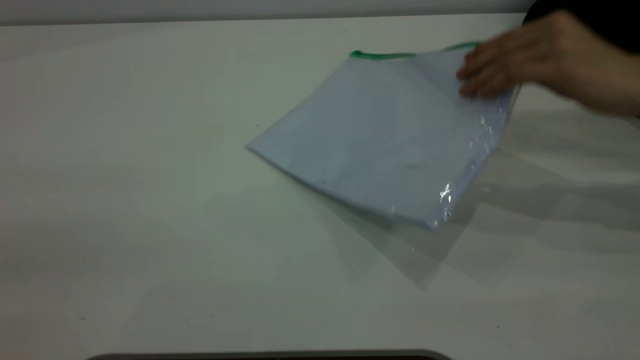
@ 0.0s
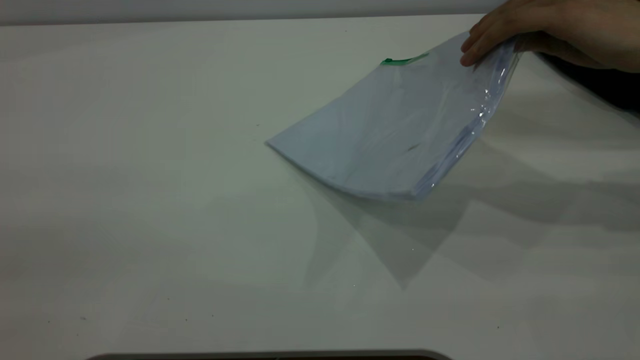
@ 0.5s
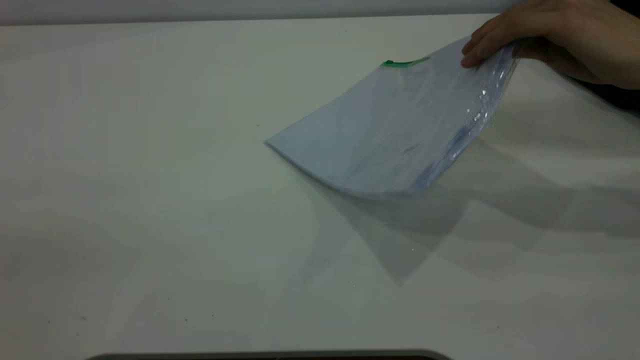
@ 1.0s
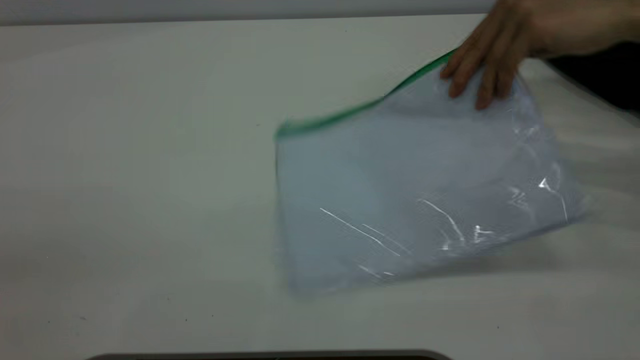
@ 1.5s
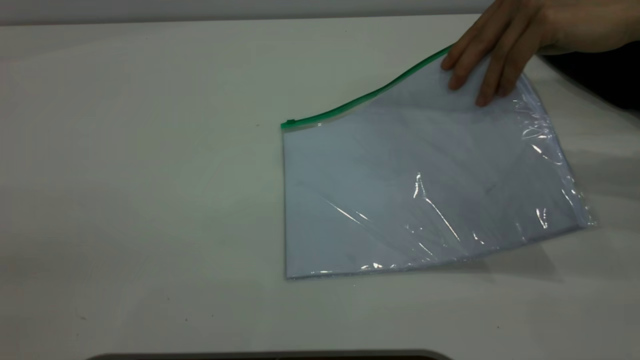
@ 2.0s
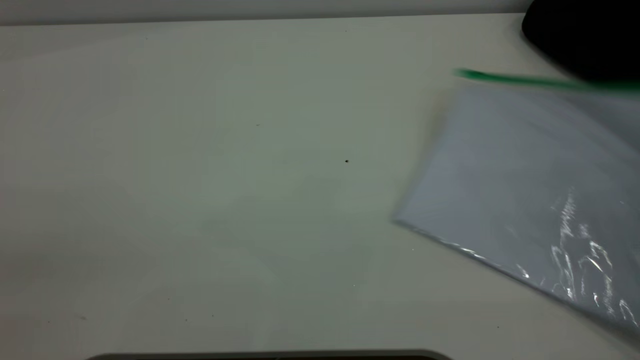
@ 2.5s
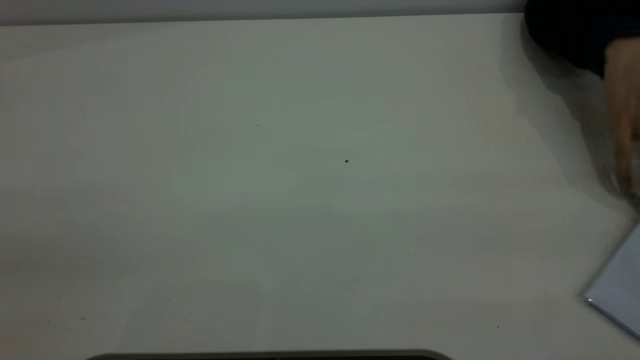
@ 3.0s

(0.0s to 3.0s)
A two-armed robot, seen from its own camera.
0.0s - 3.0s: There are only small adjustments of the grippers.

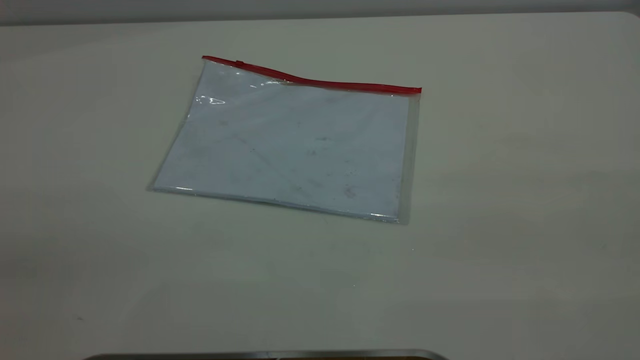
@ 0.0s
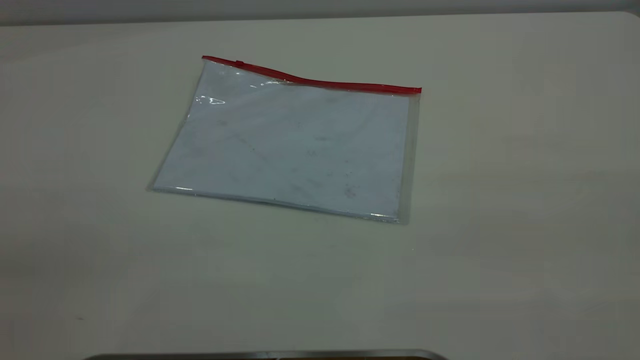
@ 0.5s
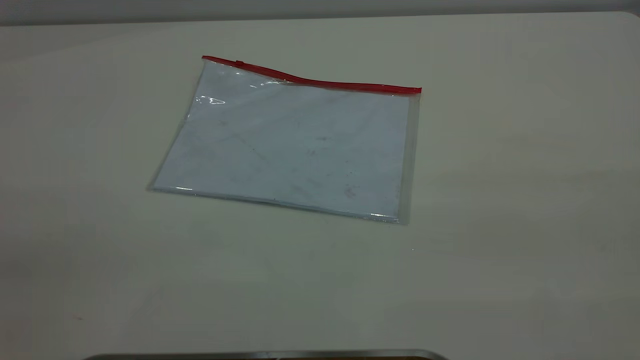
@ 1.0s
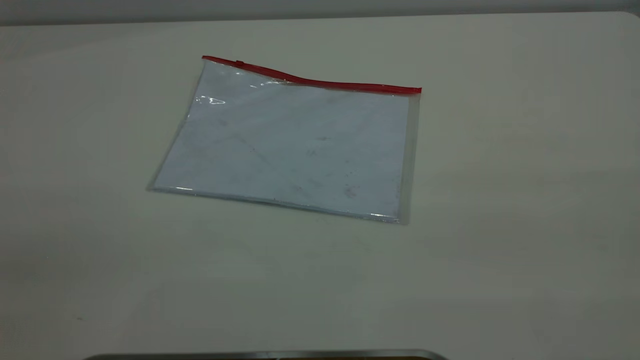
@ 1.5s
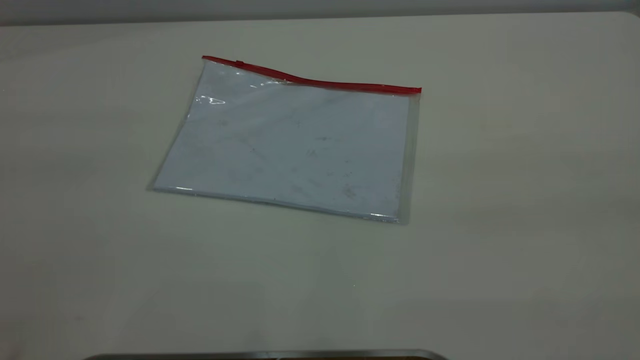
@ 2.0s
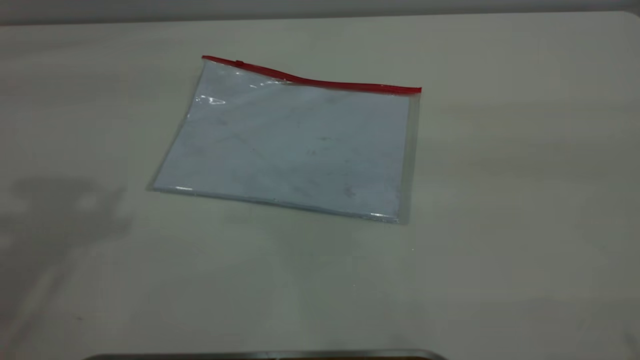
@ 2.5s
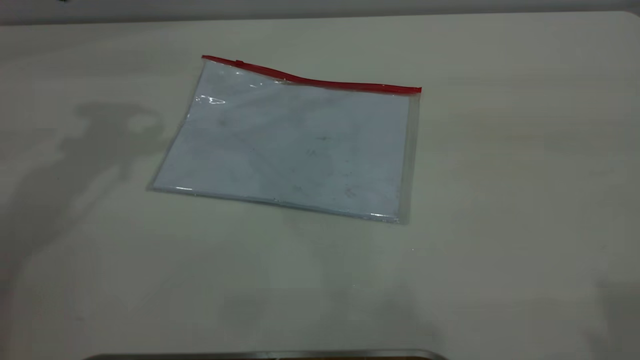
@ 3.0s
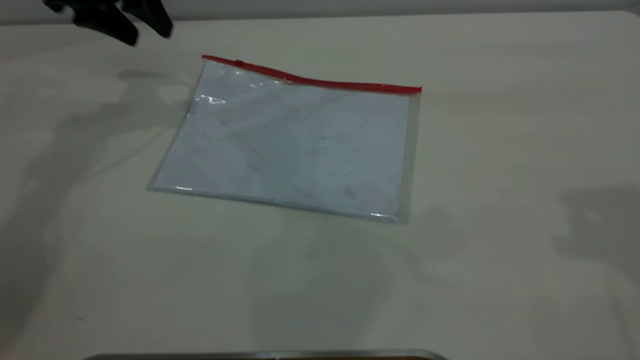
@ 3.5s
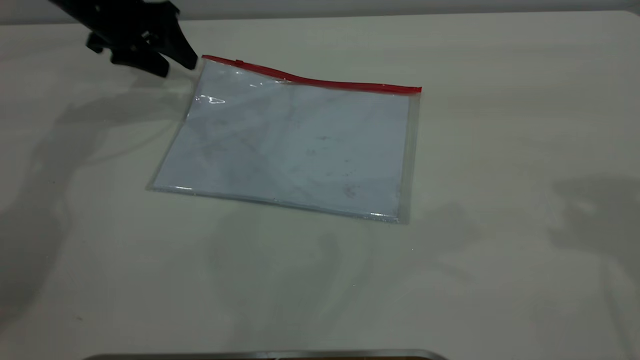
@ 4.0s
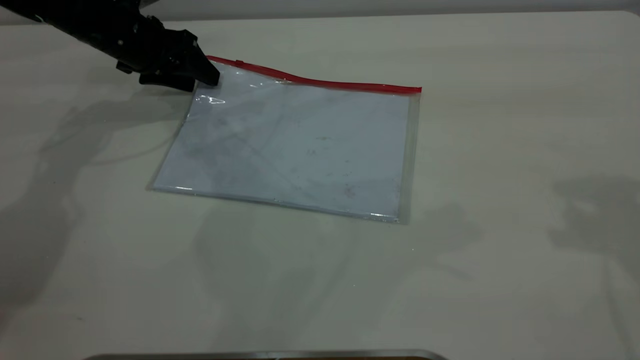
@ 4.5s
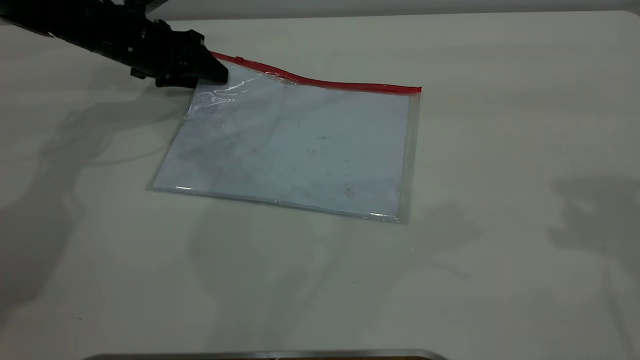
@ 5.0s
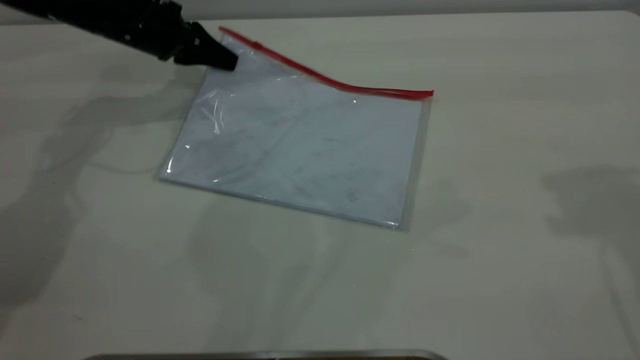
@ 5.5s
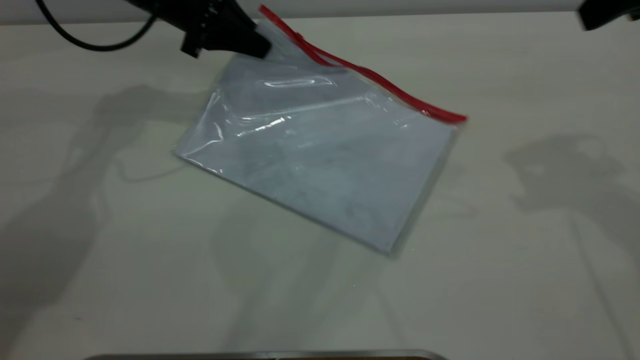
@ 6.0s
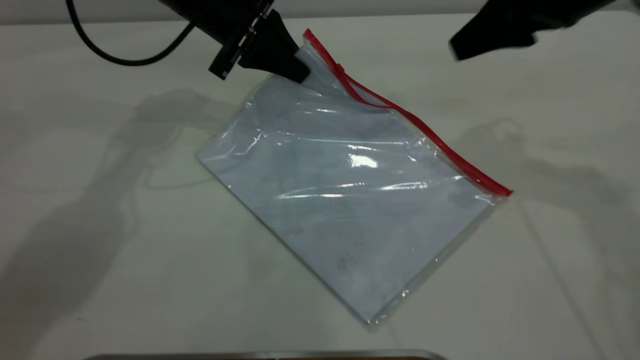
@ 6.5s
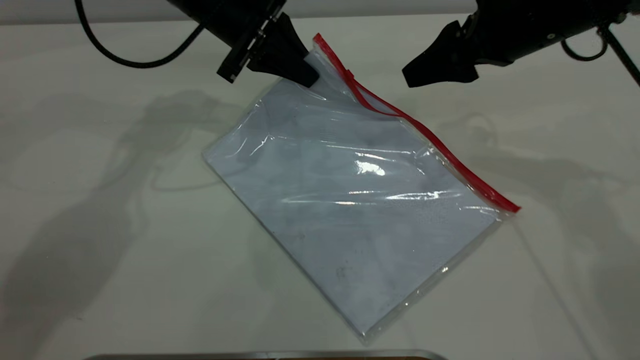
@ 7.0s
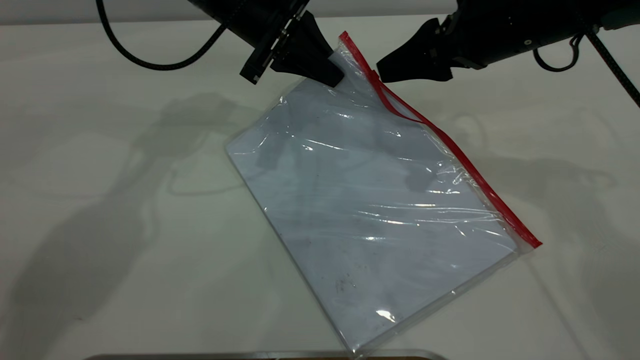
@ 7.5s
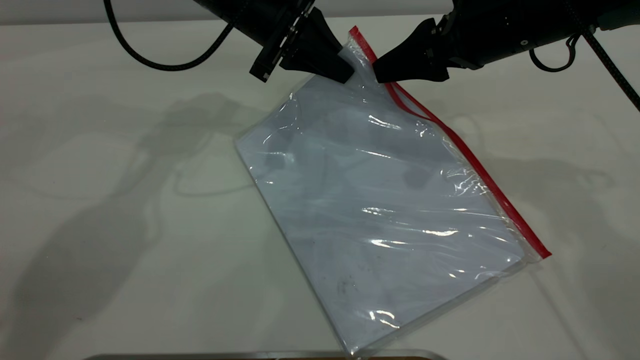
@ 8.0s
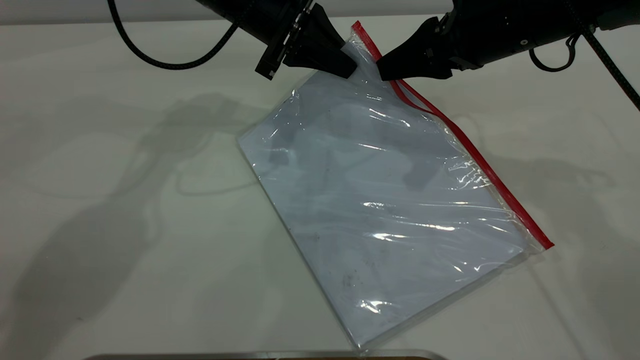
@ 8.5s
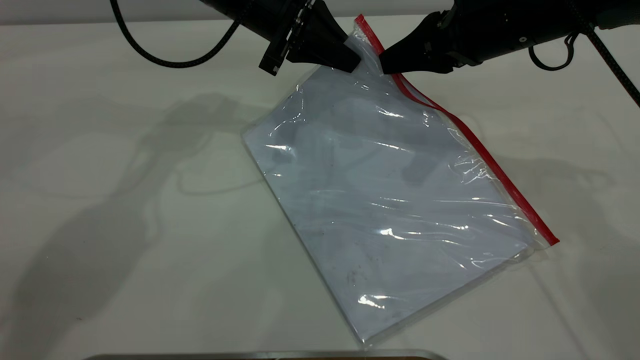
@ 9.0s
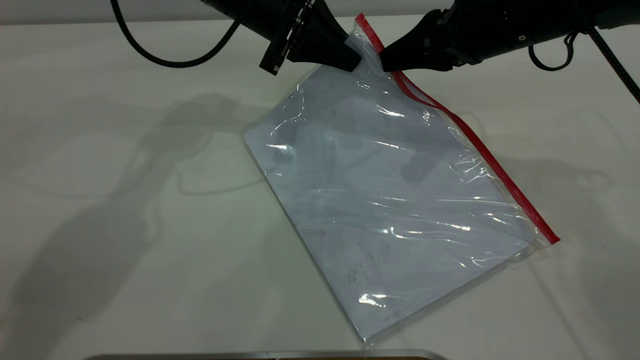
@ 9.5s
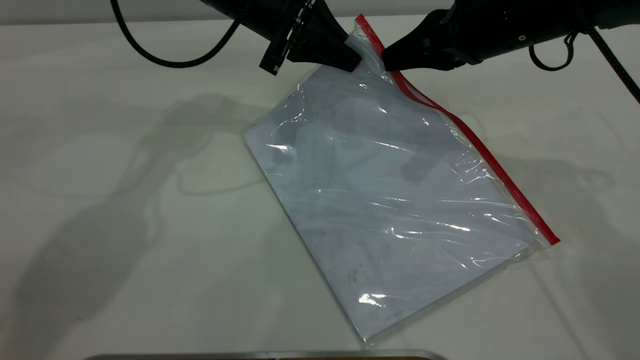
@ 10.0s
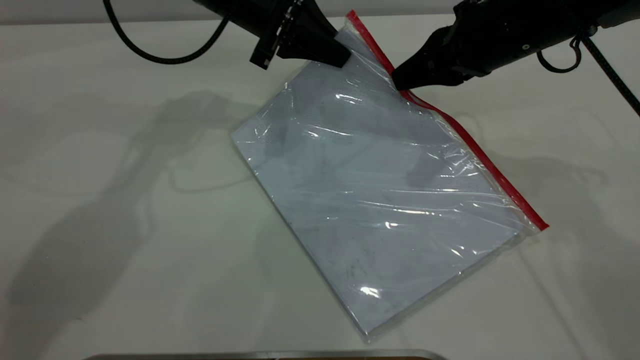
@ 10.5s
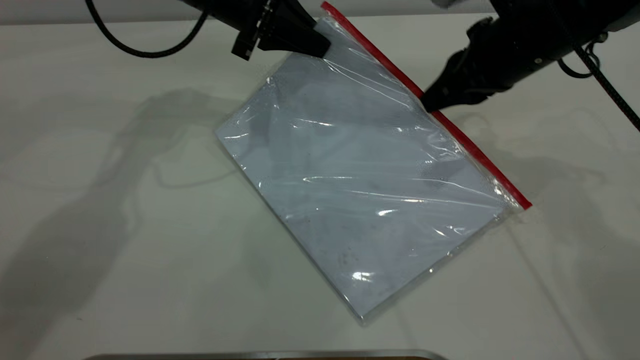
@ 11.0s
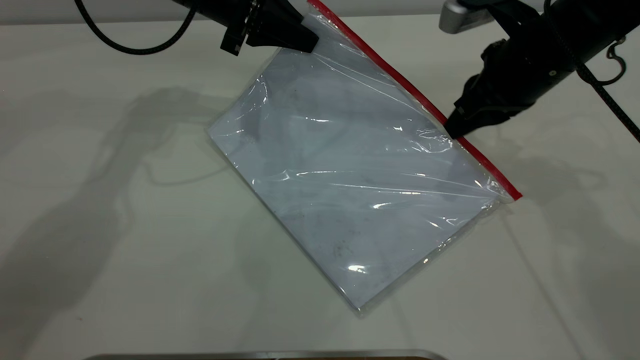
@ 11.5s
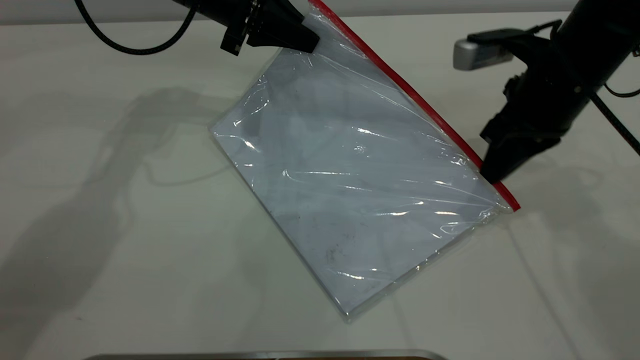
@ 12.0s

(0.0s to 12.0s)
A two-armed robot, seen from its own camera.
Step, 0.0s - 5.5s: Pick up the transparent plastic bag with the left gripper.
2.0s - 4.0s: The left gripper is displaced forward and downward by about 50 cm.
4.0s - 6.0s: The right gripper heads forward and downward, covering roughly 10 cm, while the left gripper moves to the right, about 10 cm, and closes up.
6.0s - 8.0s: The left gripper is displaced to the right by some 10 cm, while the right gripper moves downward and to the left, about 15 cm.
8.0s - 10.0s: The right gripper closes.
10.0s - 12.0s: The left gripper moves to the left, approximately 5 cm. Meanwhile the right gripper changes place by about 5 cm.

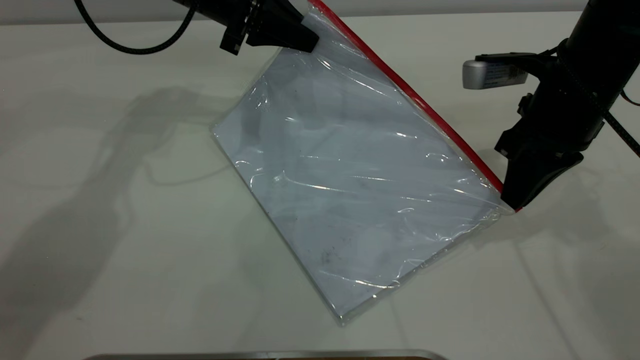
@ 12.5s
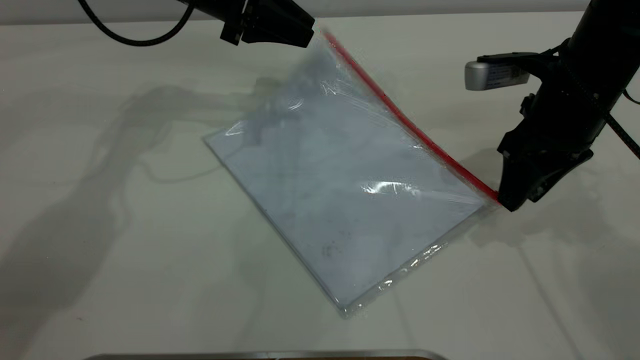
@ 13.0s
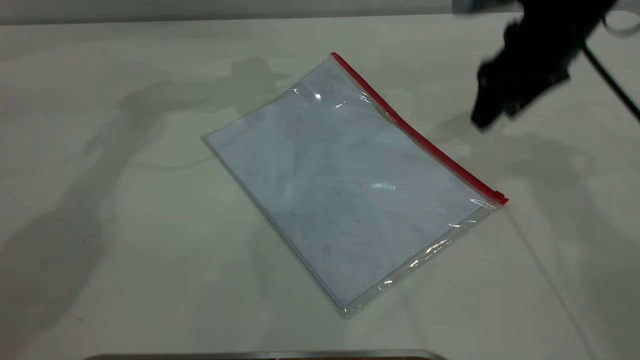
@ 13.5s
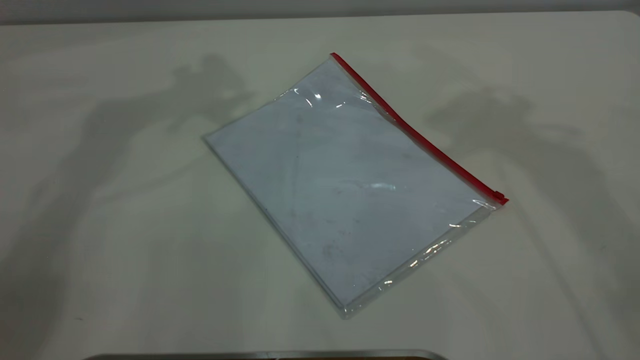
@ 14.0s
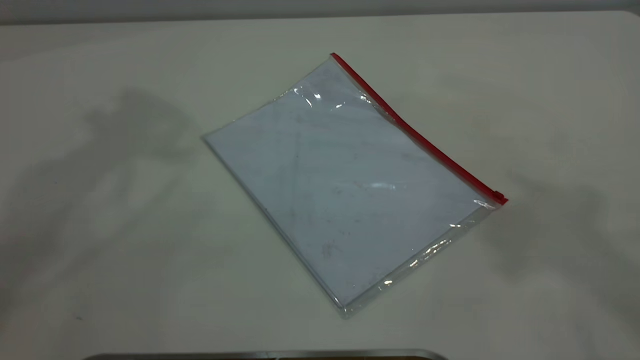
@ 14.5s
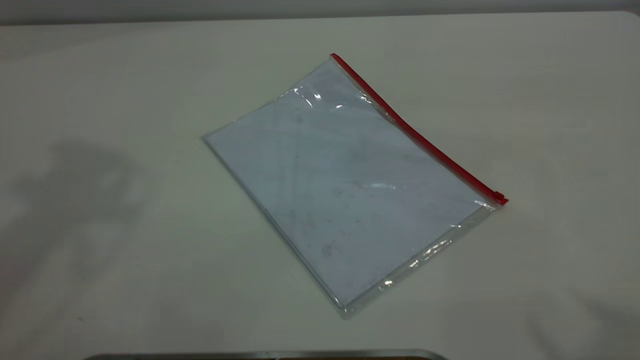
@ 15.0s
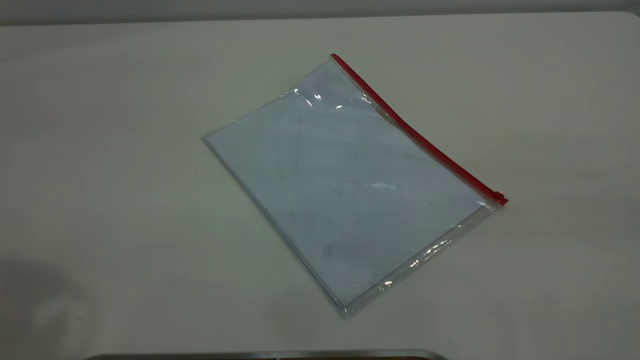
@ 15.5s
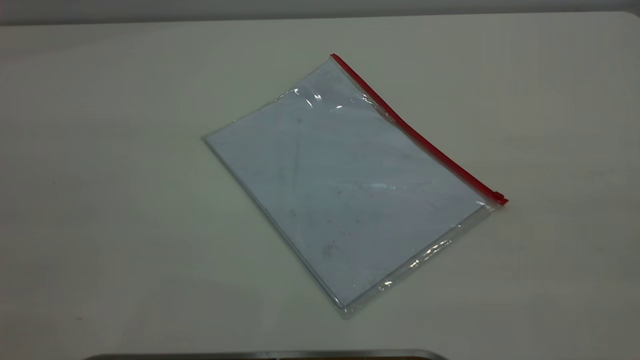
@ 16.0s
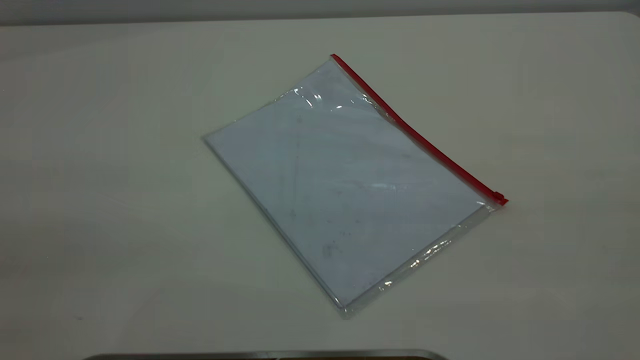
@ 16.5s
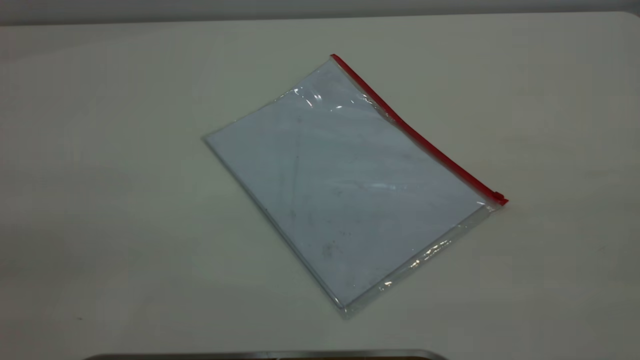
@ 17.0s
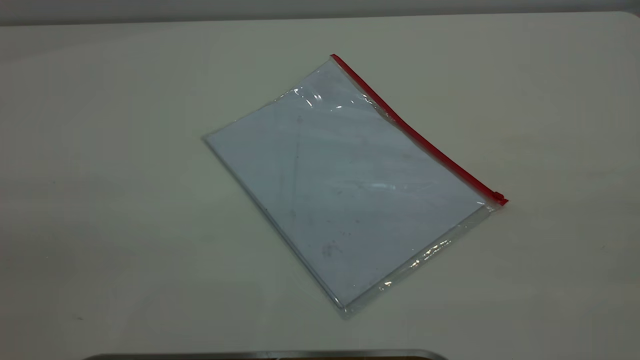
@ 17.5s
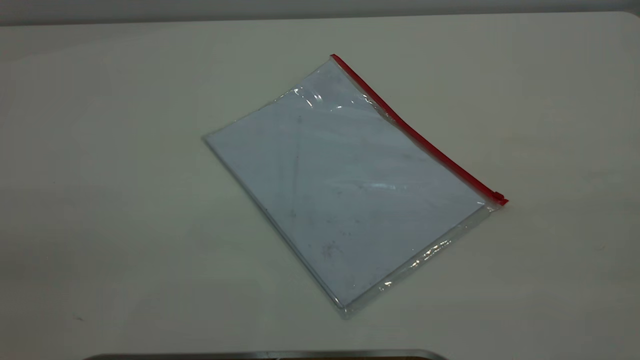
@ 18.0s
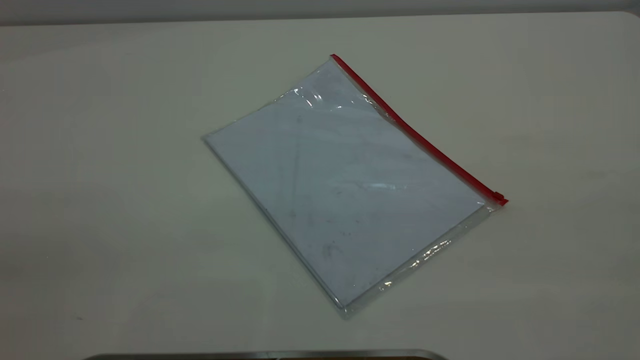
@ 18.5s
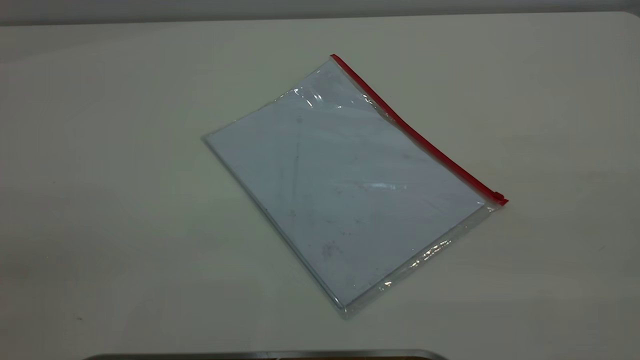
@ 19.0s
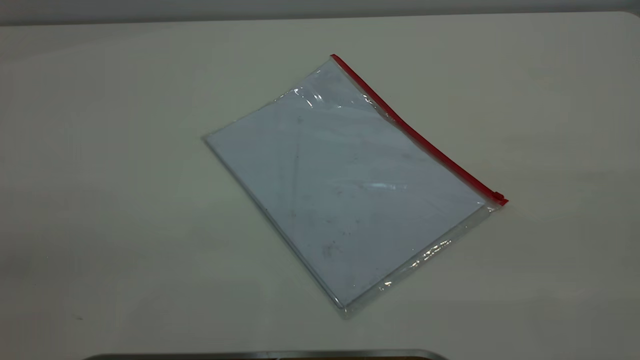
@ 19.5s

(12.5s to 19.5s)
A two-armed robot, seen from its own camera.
12.5s - 14.5s: The grippers both shift upward by some 40 cm. The right gripper opens its fingers. Meanwhile the left gripper opens its fingers.
